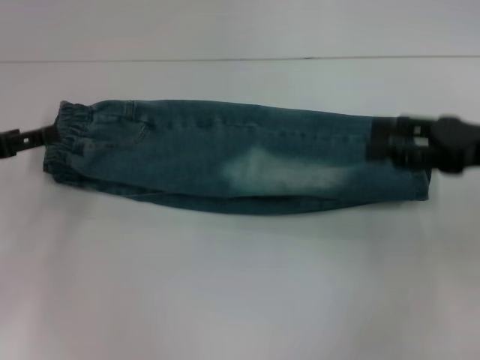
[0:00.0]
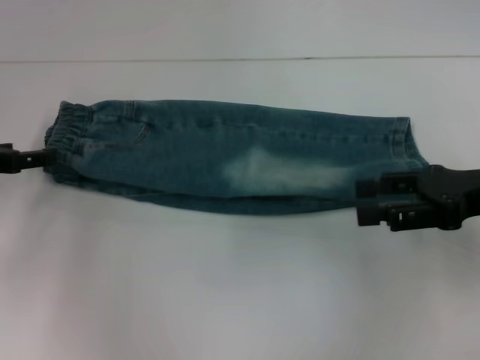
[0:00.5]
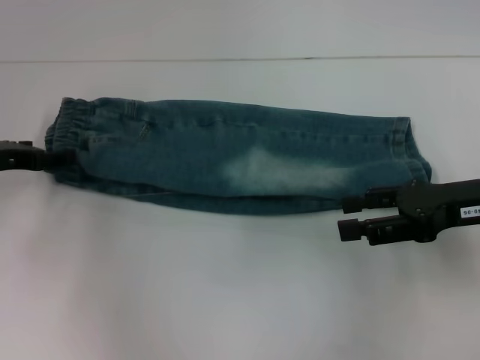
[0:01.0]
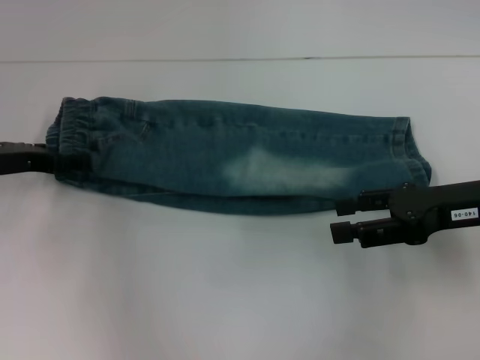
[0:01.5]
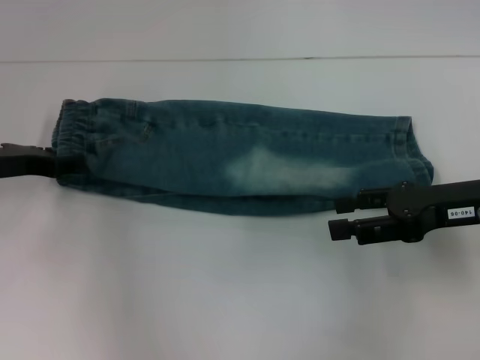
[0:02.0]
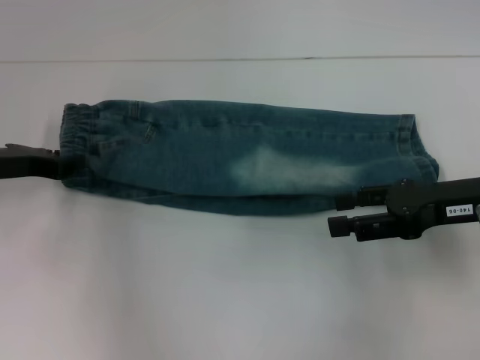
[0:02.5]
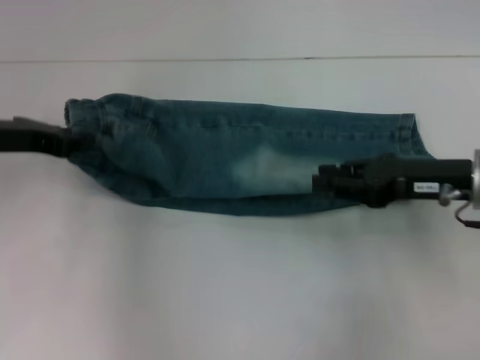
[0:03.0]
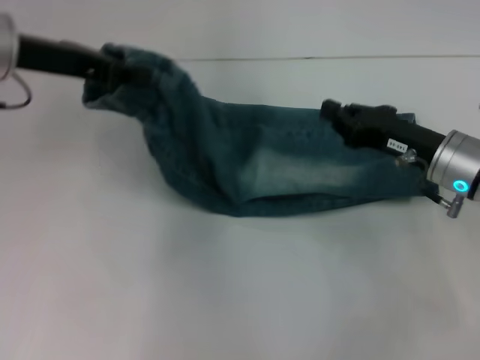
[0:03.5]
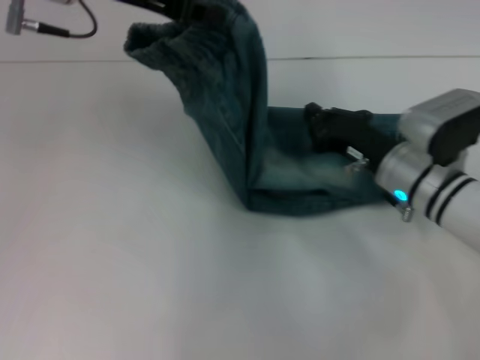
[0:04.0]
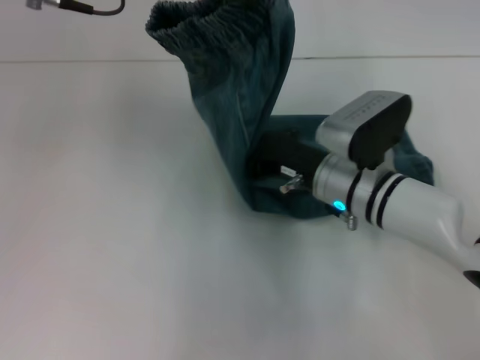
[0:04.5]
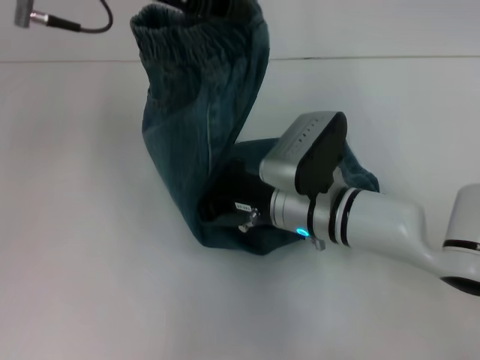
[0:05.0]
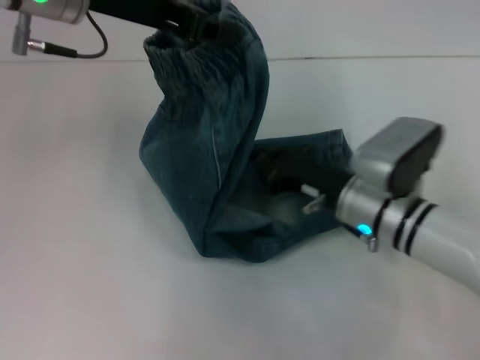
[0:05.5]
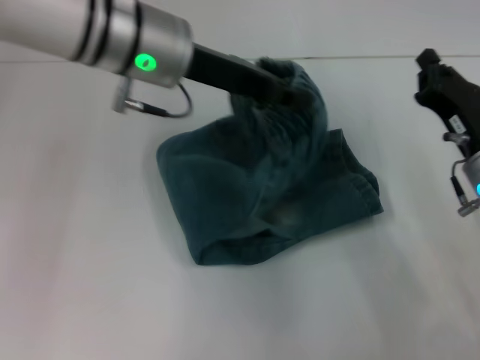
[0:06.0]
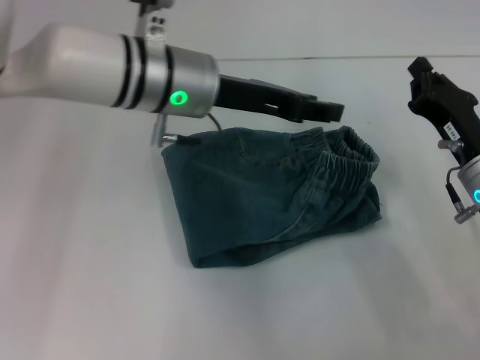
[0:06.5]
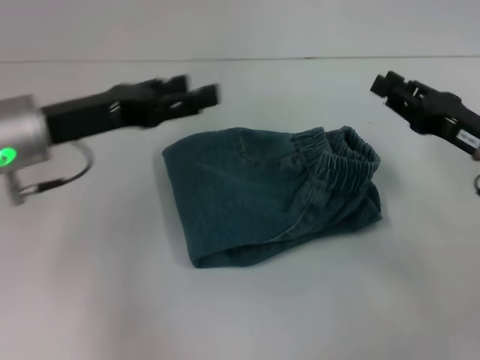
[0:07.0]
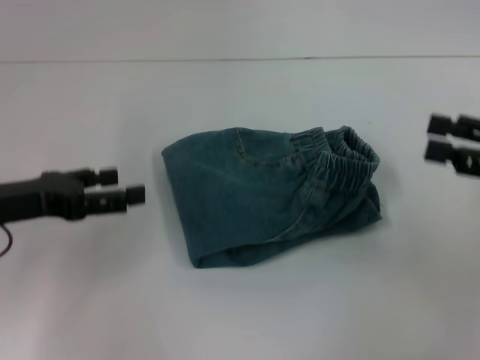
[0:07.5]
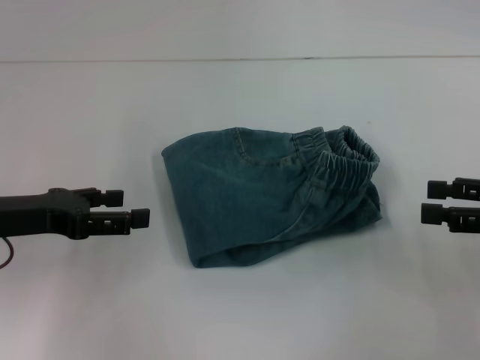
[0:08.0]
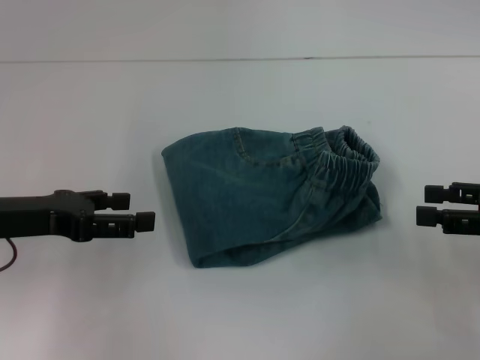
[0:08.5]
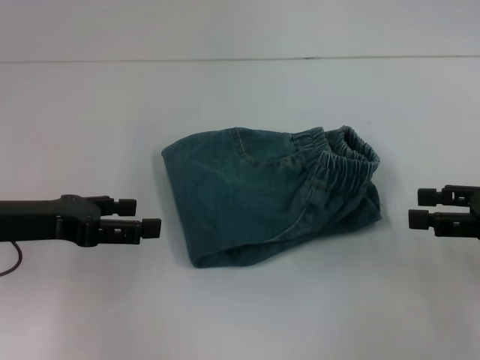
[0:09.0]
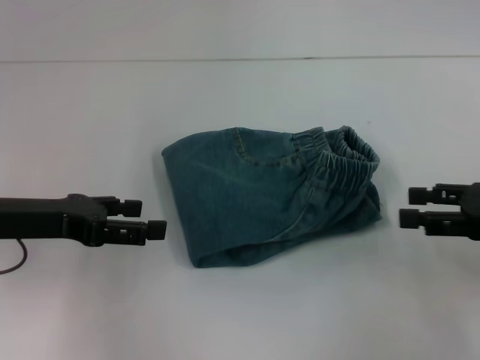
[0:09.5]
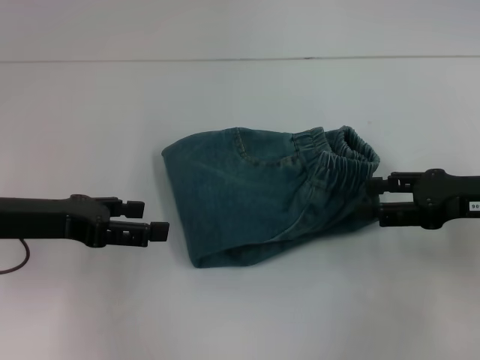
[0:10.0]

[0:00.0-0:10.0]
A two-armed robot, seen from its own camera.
Step, 0:00.0 to 0:02.5: Hold the waistband with your left hand.
Step, 0:03.0 to 0:05.0: Press the middle of the pants with your right hand.
Step, 0:05.5 to 0:06.5: Fold to the right with your left hand.
0:00.0 to 0:02.0: The left gripper ends up roughly 5 cm from where it was.
0:02.0 to 0:04.0: The left gripper is displaced upward and to the right by some 25 cm, and closes; the right gripper shifts some 10 cm to the left and downward, and closes up.
0:04.0 to 0:06.0: The right gripper moves to the right, approximately 5 cm; the left gripper goes some 10 cm downward and to the right.
0:06.0 to 0:08.0: The left gripper is displaced to the left, backward and downward by about 25 cm, and opens. Meanwhile the right gripper goes some 15 cm to the right and upward, and opens up.
0:08.0 to 0:10.0: The right gripper goes about 5 cm to the left.
